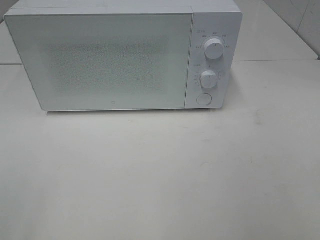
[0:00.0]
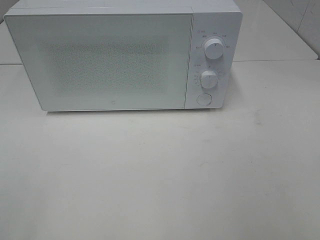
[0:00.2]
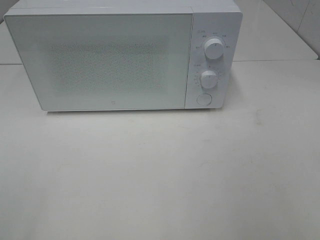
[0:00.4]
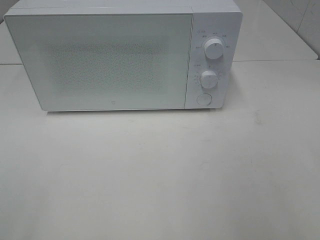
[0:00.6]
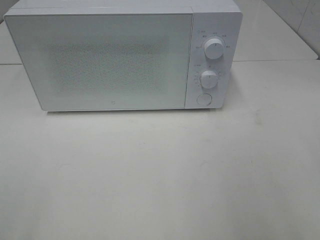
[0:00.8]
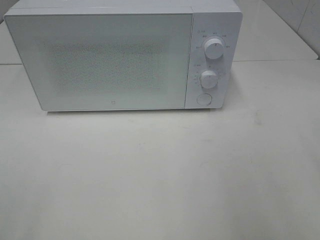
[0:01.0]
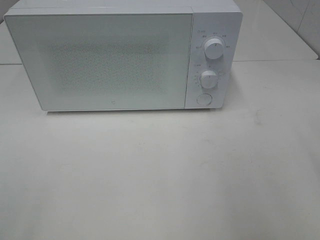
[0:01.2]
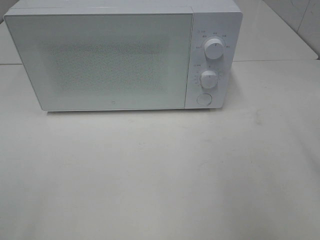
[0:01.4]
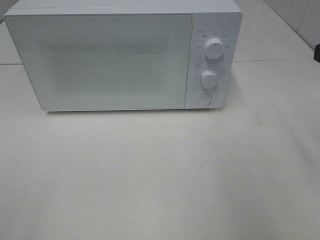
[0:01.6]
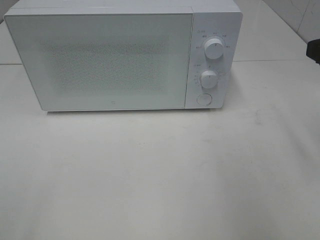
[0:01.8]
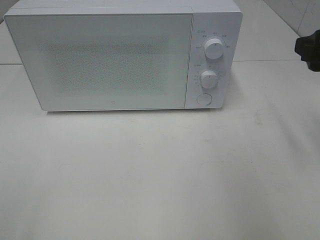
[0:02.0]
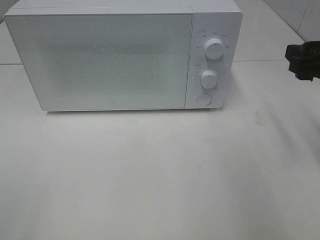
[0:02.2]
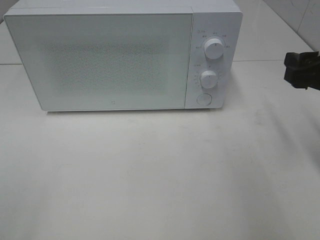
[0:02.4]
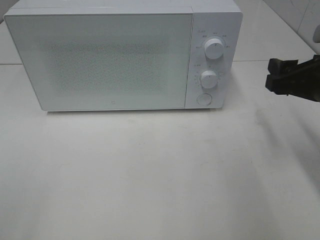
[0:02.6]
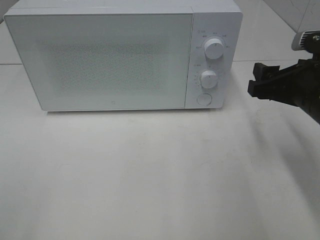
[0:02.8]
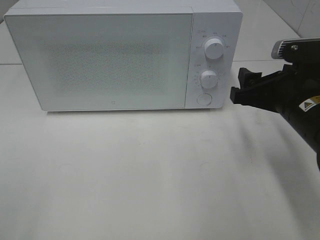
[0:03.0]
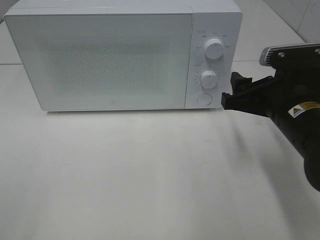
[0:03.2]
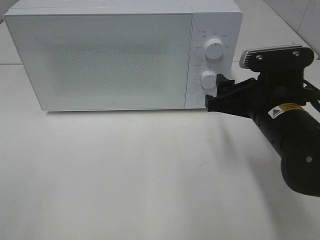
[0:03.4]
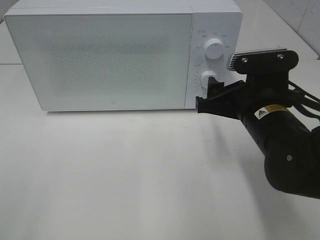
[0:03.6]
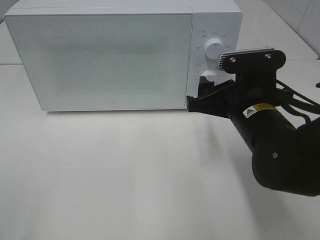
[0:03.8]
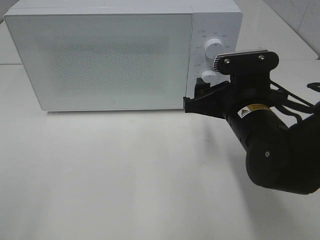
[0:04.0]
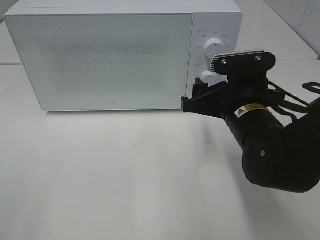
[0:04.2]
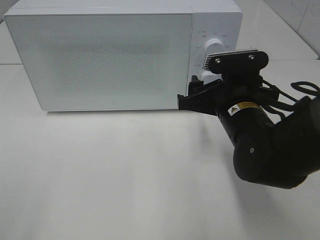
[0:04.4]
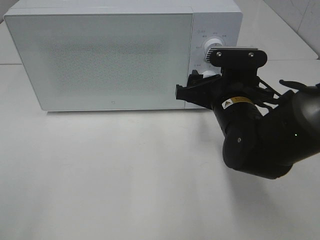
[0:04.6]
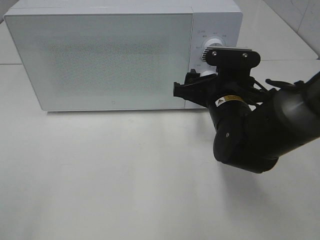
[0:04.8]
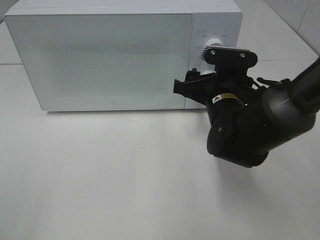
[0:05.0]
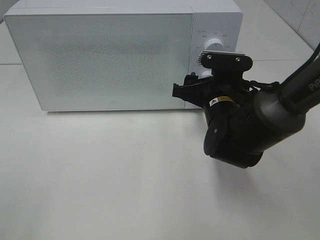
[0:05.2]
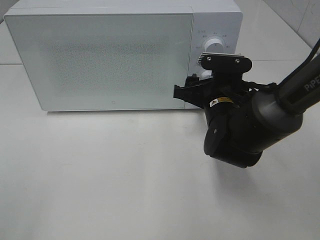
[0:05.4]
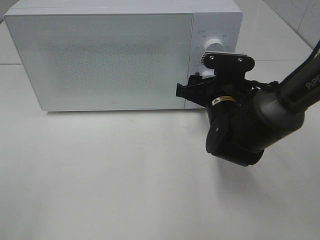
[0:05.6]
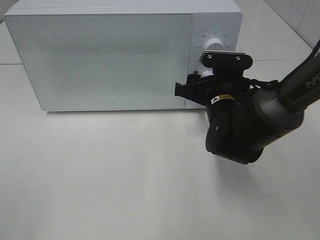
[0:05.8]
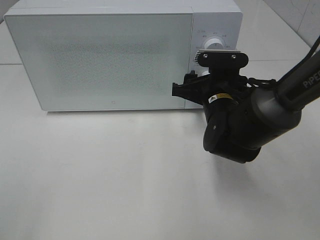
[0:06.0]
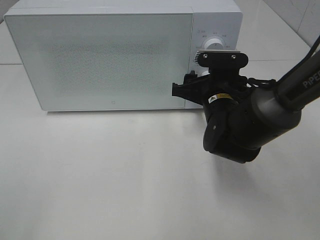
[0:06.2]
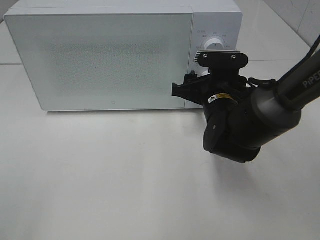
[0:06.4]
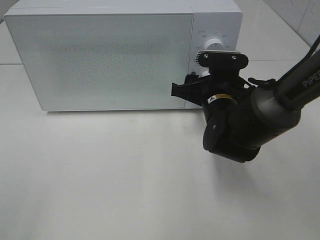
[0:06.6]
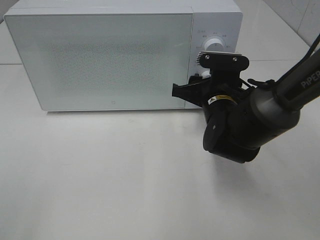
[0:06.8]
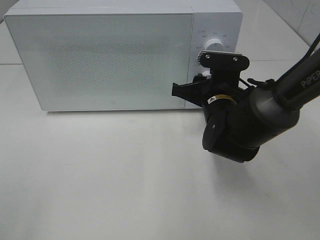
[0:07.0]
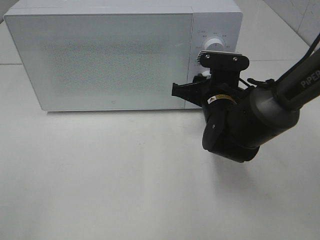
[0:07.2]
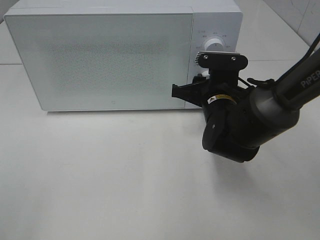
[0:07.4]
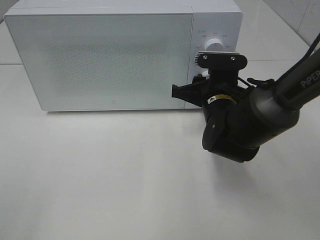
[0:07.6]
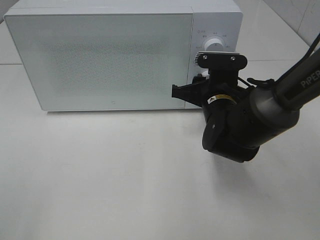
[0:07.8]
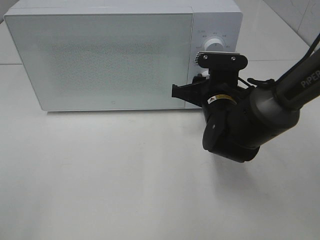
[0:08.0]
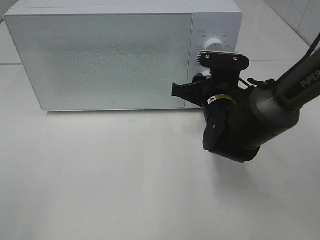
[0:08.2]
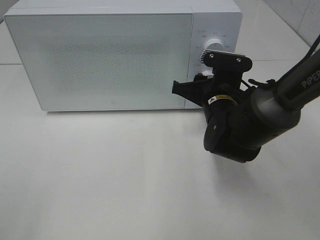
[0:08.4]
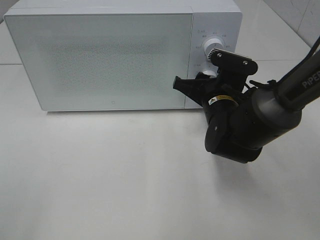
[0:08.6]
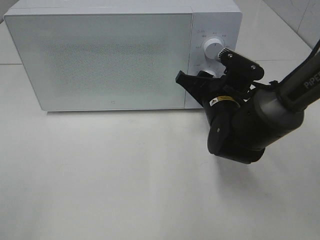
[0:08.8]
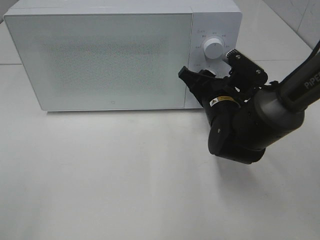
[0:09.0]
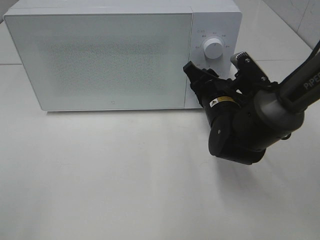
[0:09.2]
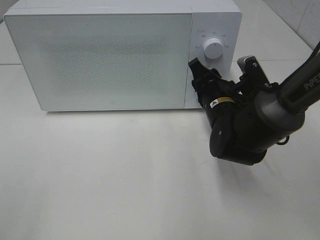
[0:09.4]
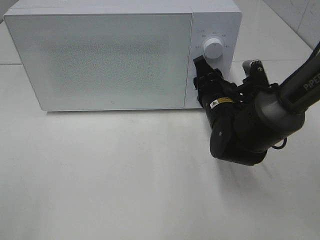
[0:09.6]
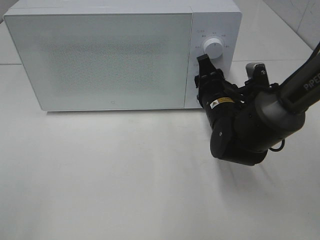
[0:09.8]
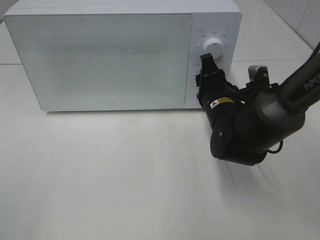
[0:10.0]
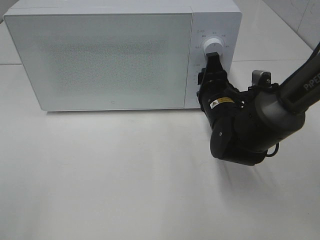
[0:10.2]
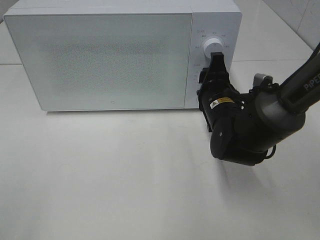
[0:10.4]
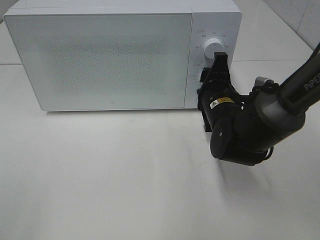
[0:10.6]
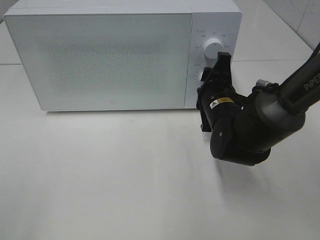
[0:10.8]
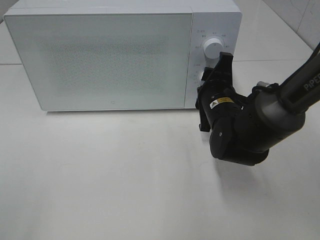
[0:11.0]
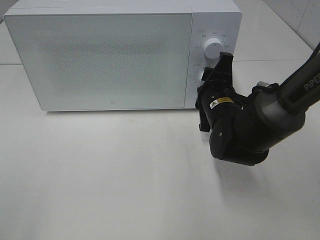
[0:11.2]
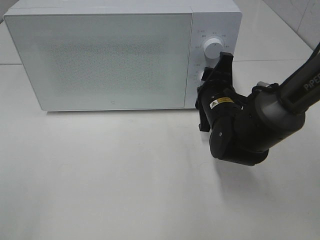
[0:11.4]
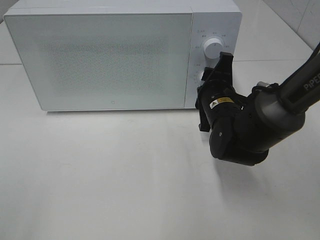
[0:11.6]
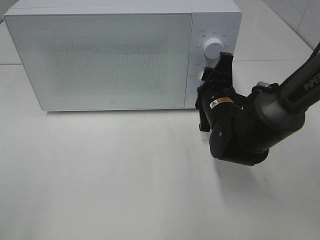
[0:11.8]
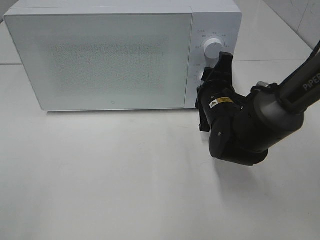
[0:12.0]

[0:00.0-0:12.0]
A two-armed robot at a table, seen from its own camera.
Task of the whole recording: Heat the burger.
0:01.6 to 0:03.0: The right gripper is displaced downward and to the left by some 15 cm.
0:03.0 to 0:04.4: The right gripper is displaced to the left by approximately 10 cm.
0:04.4 to 0:06.0: The right gripper goes about 5 cm forward.
0:06.0 to 0:07.6: Neither gripper changes place.
0:10.4 to 0:12.0: There are only small adjustments of the grippers.

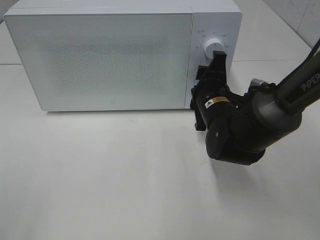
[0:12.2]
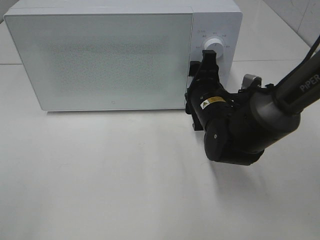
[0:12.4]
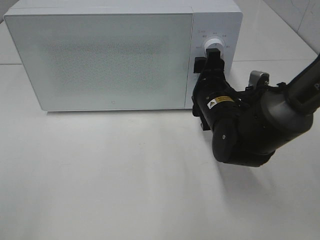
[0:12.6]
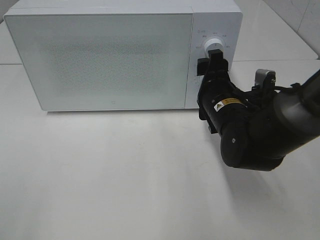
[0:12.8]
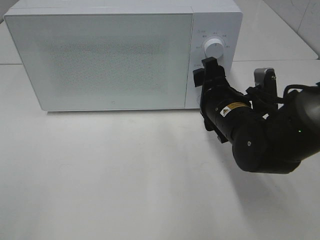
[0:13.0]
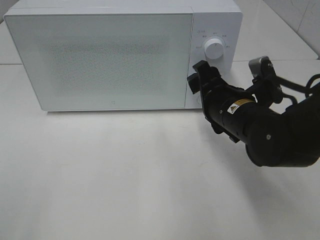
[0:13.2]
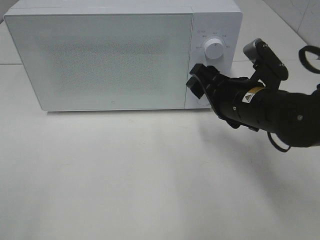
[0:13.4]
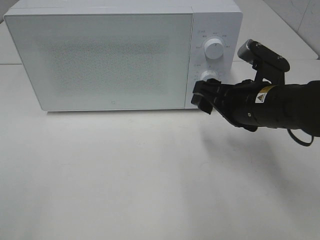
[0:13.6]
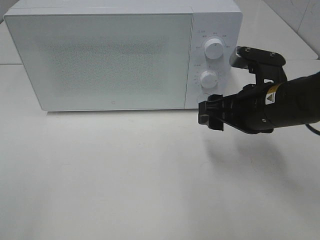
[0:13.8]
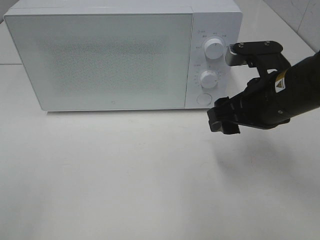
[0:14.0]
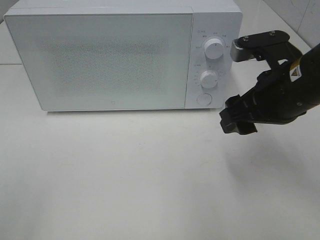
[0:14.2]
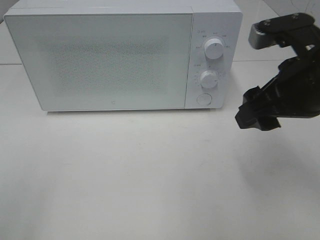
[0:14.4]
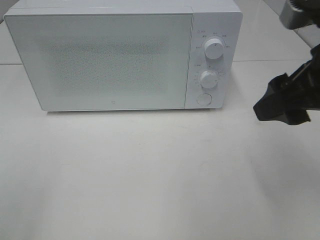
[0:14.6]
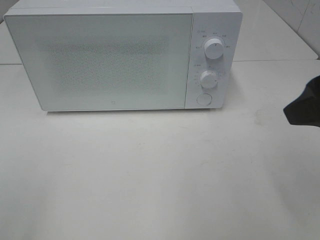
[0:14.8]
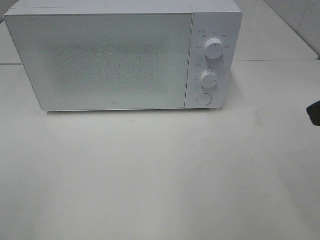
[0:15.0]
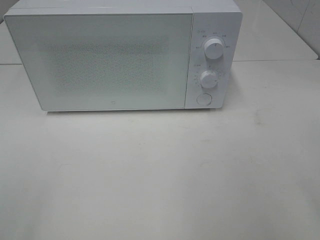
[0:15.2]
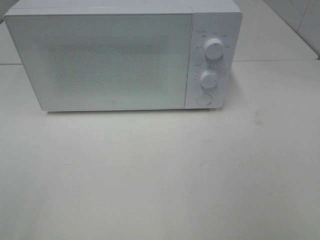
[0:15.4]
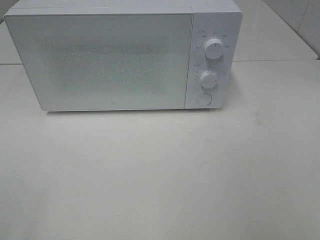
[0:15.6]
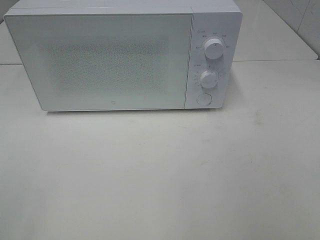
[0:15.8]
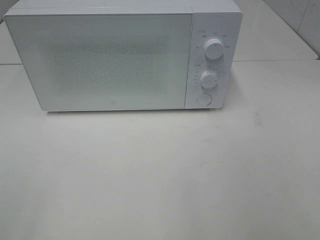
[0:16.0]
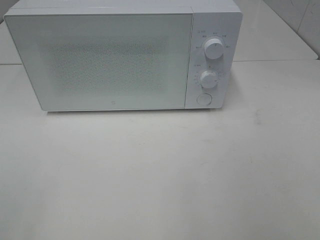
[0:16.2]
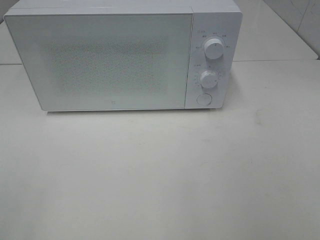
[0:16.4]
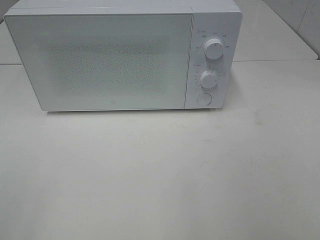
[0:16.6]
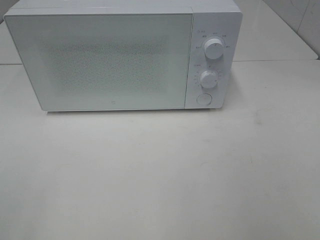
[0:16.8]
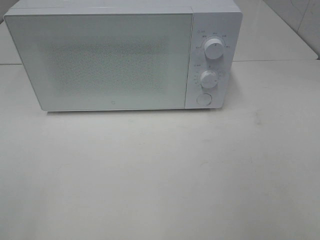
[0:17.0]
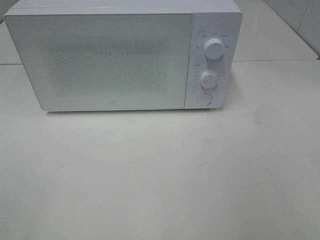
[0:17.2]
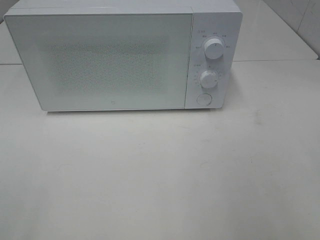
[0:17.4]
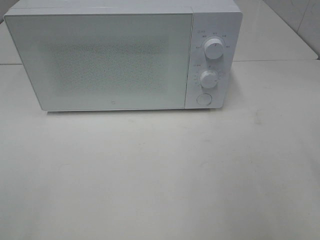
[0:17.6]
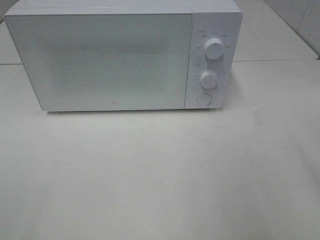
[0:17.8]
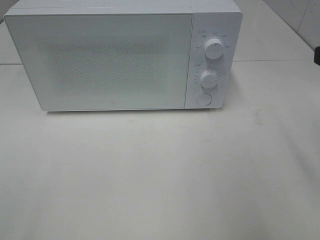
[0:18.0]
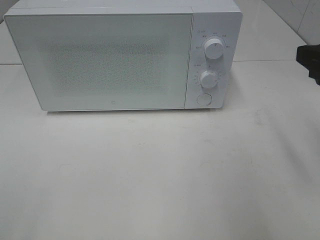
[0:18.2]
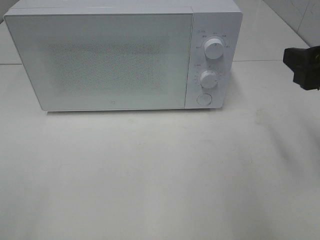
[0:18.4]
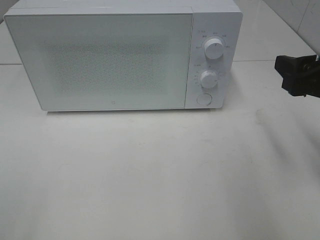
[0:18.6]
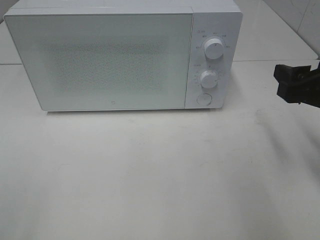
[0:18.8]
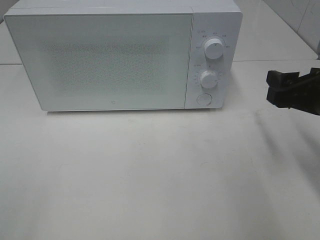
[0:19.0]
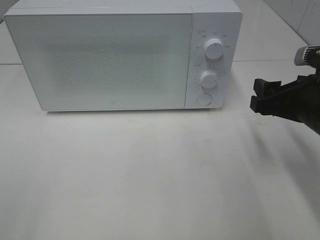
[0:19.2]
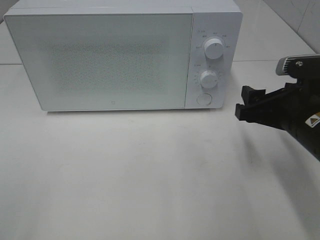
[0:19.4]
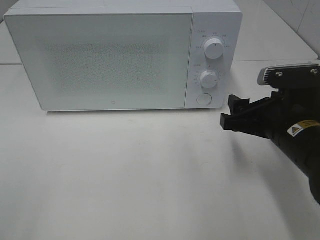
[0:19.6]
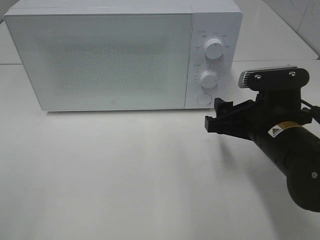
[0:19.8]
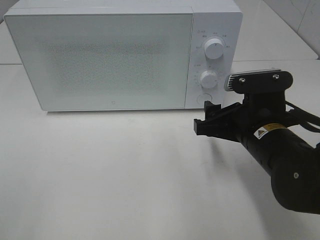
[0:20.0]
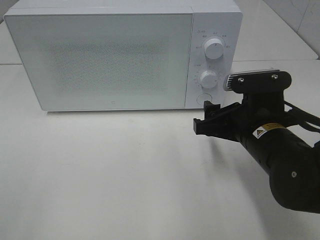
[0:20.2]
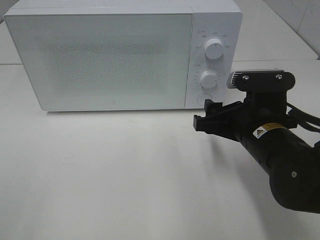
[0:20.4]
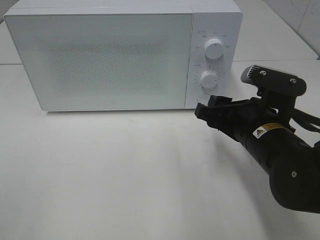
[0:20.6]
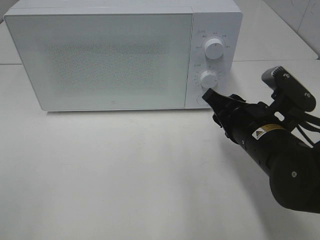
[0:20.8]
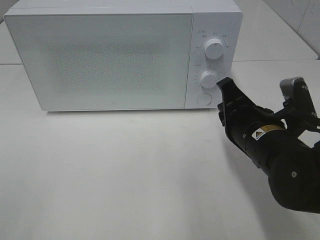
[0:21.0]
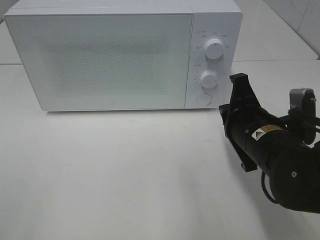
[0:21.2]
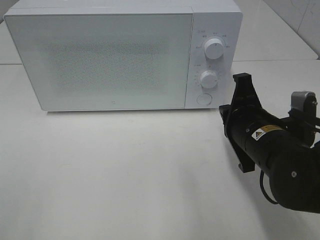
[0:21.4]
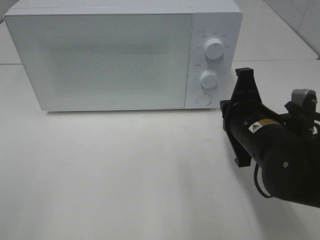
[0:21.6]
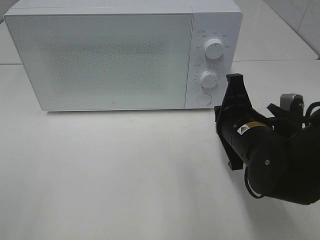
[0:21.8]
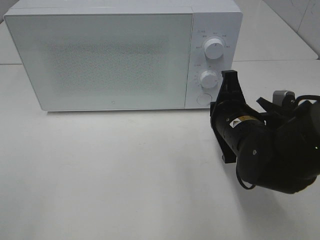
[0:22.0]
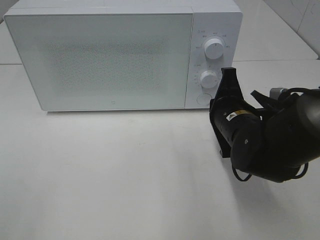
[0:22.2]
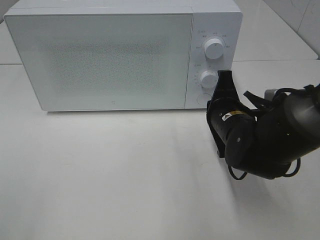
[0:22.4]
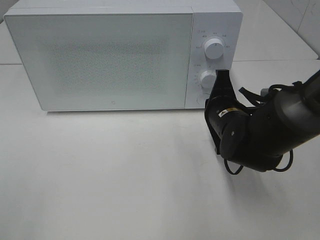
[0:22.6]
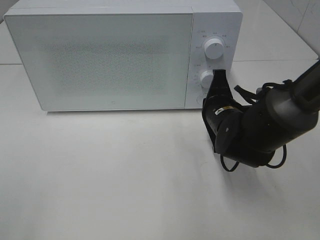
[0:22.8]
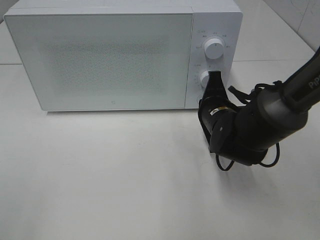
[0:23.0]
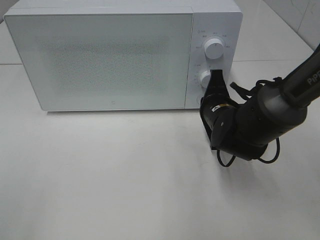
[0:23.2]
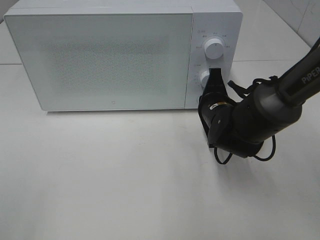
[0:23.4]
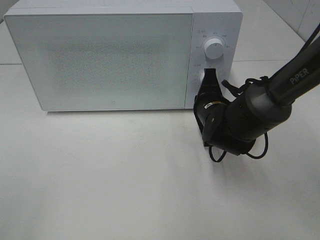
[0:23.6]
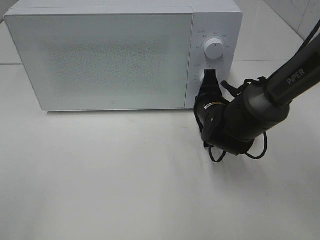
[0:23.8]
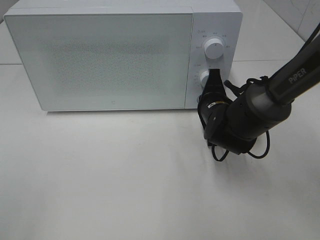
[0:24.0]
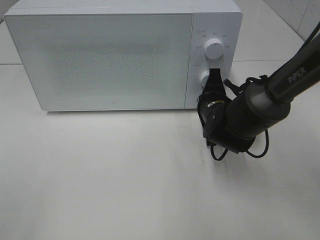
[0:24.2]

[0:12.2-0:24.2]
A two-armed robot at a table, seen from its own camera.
Task of the whole recording: Heat the burger.
0:12.2 to 0:13.8: The right gripper moves backward and upward, roughly 10 cm.
0:13.8 to 0:15.2: The right gripper is displaced backward, upward and to the right by about 25 cm.
0:16.6 to 0:18.2: The right gripper is displaced forward by roughly 20 cm.
0:18.2 to 0:19.8: The right gripper shifts roughly 15 cm downward and to the left.
0:19.8 to 0:21.2: The right gripper closes.
0:21.2 to 0:22.6: The right gripper moves forward, some 5 cm.
0:22.6 to 0:24.2: The right gripper moves some 5 cm.
